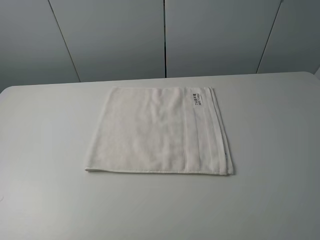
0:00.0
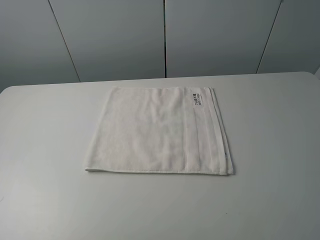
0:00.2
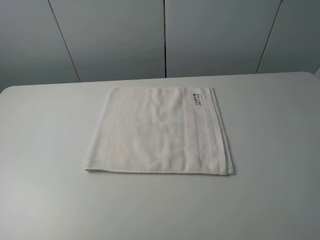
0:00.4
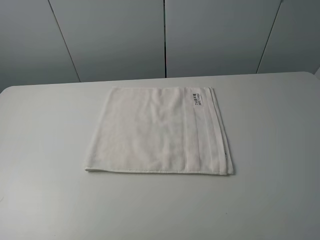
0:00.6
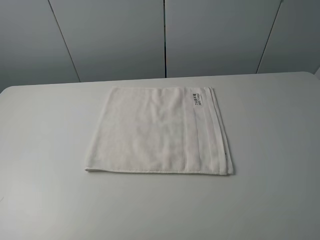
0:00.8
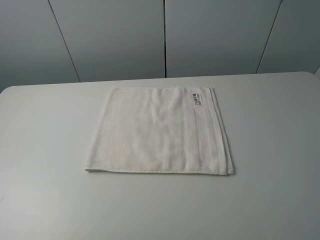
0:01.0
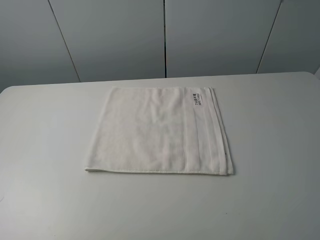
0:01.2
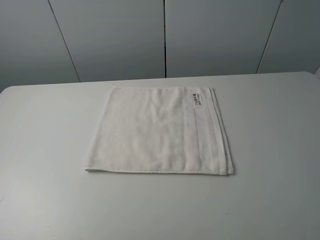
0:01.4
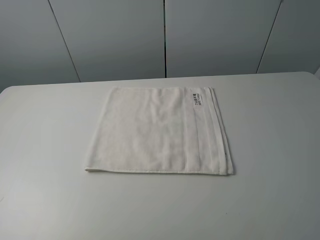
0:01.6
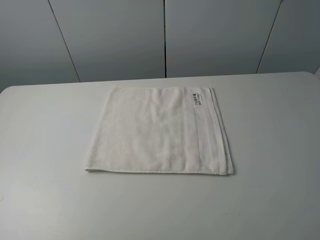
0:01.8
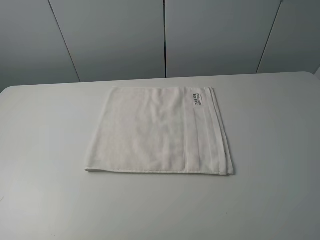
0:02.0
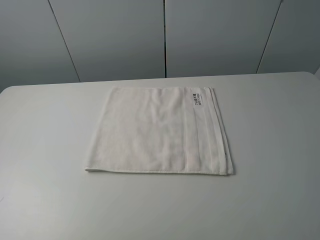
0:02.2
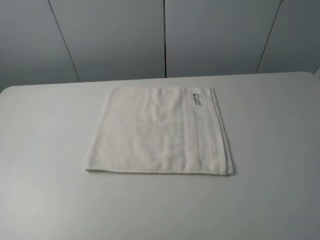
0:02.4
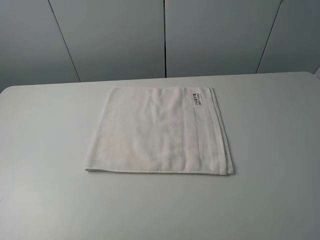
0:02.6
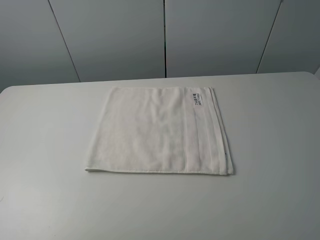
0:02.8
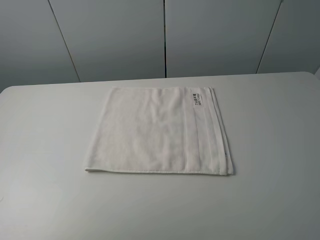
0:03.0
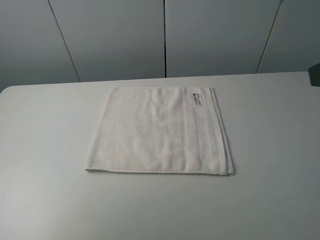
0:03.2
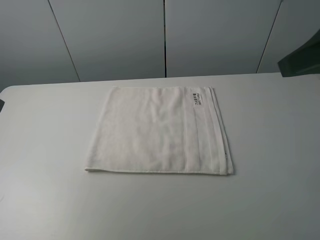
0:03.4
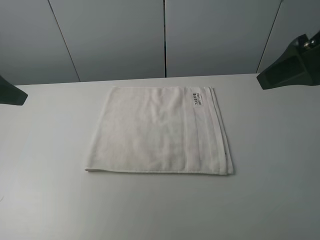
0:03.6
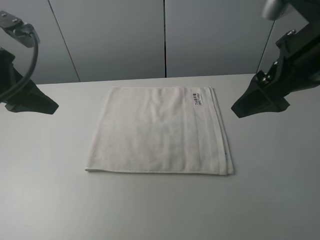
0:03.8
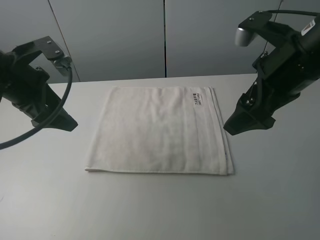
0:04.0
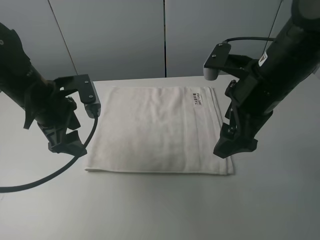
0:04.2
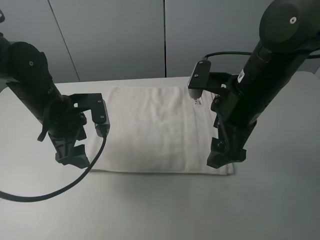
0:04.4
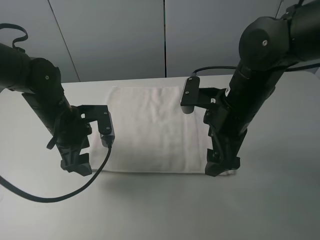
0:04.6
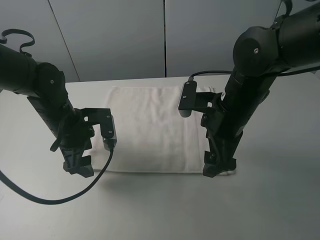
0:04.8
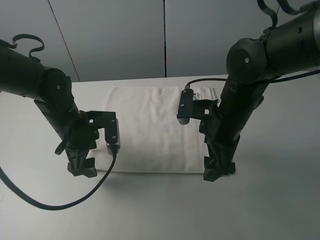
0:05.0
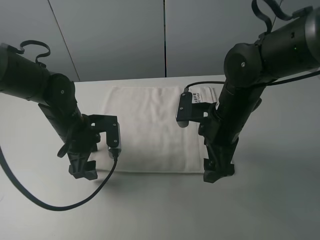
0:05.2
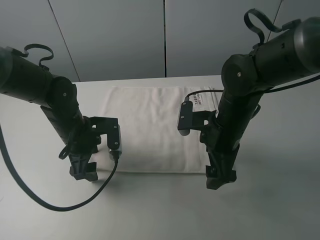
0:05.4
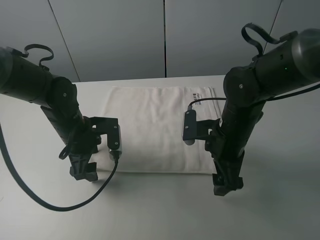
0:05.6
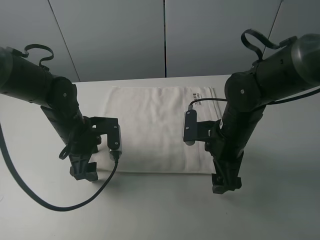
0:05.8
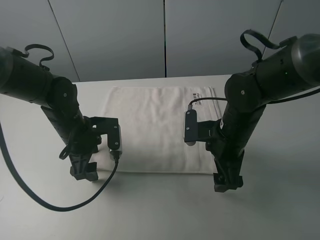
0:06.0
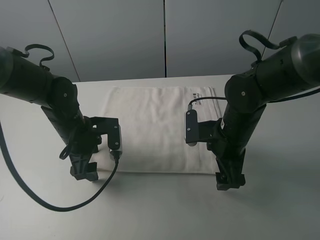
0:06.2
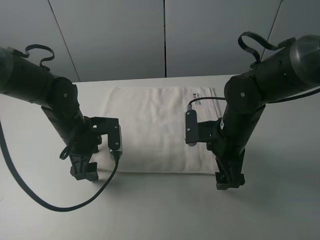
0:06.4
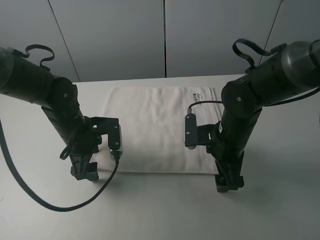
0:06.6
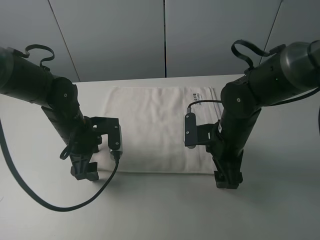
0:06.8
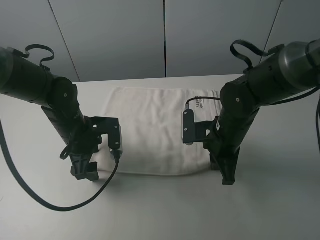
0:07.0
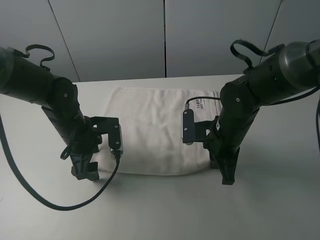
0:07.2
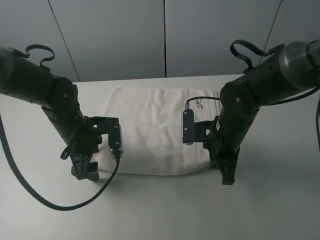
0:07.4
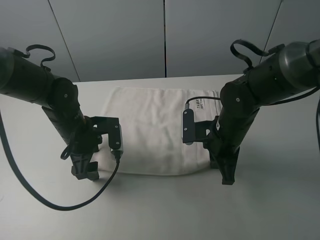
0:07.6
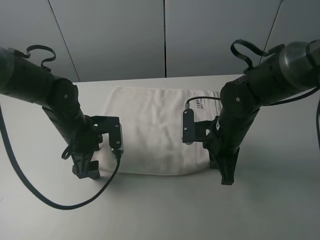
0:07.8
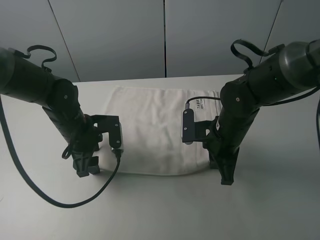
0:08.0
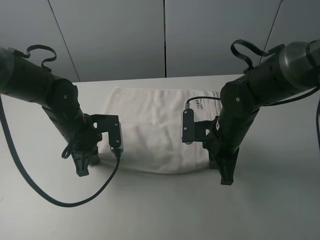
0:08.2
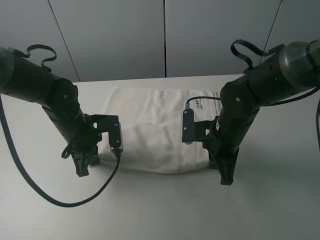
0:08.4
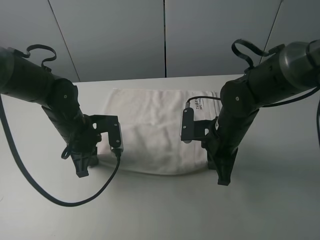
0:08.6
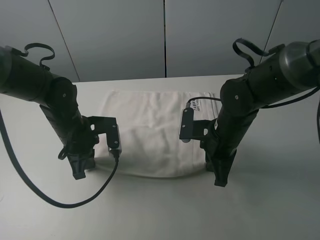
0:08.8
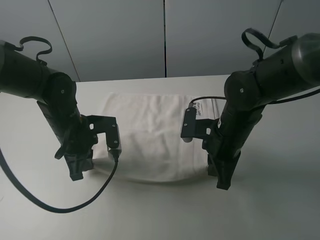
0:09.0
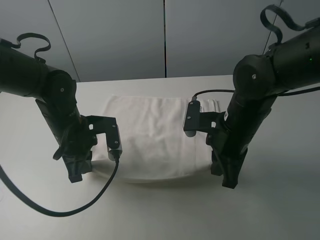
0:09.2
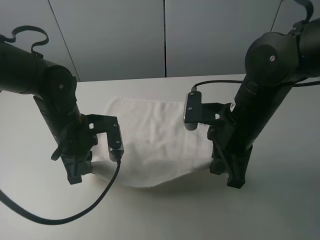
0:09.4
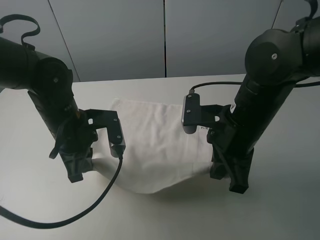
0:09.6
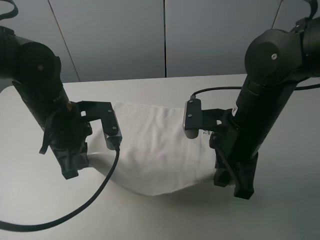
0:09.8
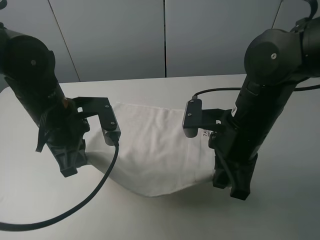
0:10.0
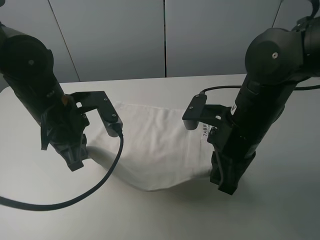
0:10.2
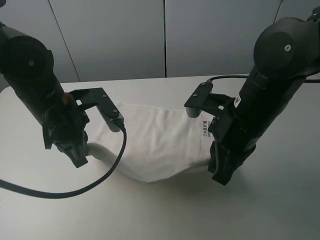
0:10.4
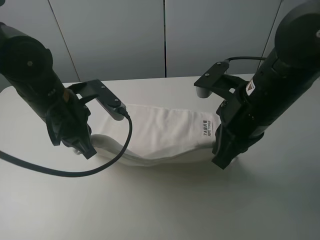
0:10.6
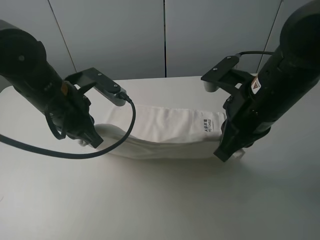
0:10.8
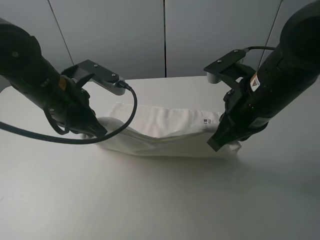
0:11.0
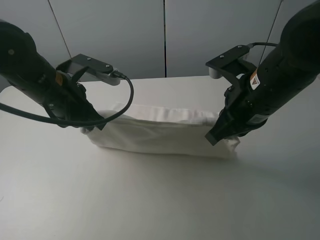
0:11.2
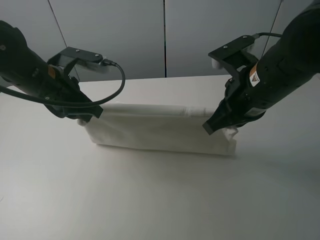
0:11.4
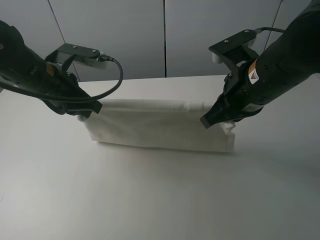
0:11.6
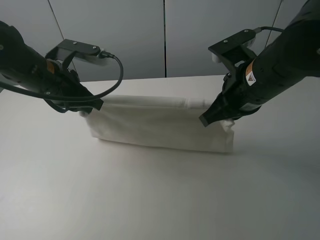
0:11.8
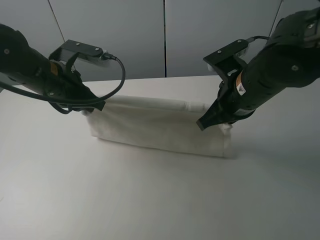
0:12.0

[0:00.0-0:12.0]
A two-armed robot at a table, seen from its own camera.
Task of the whole recording: fold the towels on the table.
Step, 0:00.0 to 0:07.0: Grasp the white towel with the right gripper.
Step, 0:07.2 to 0:08.2: Grasp the white towel with the left gripper.
0:00.0 to 0:01.6: Both grippers stay about where they are.
0:03.0 to 0:04.4: The right gripper goes approximately 25 cm forward, downward and to the left. Meanwhile the left gripper goes approximately 30 cm to the right, downward and forward.
0:04.4 to 0:06.0: The left gripper goes some 5 cm downward. Meanwhile the right gripper is displaced downward by approximately 10 cm.
0:06.0 to 0:07.6: The right gripper closes its fingers.
0:07.6 to 0:09.0: The left gripper closes.
0:09.0 to 0:10.4: The two grippers go roughly 5 cm upward.
0:10.4 to 0:12.0: The left gripper is displaced forward by about 5 cm.

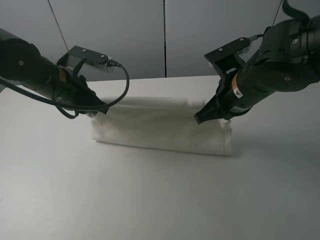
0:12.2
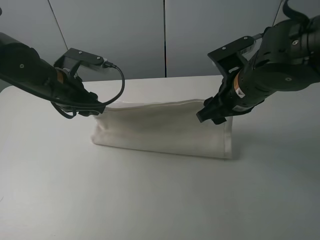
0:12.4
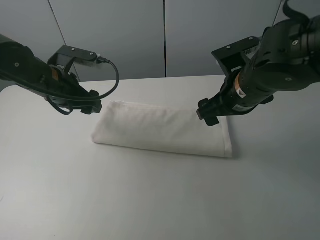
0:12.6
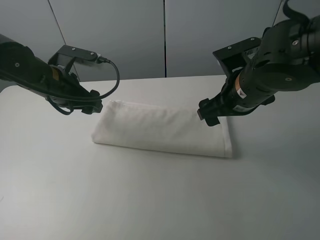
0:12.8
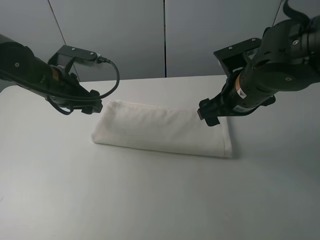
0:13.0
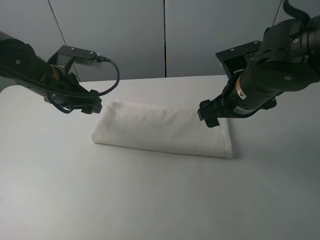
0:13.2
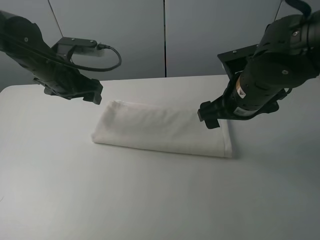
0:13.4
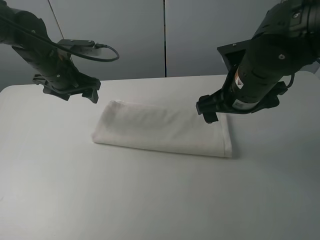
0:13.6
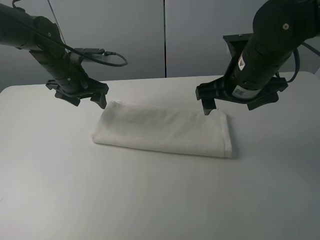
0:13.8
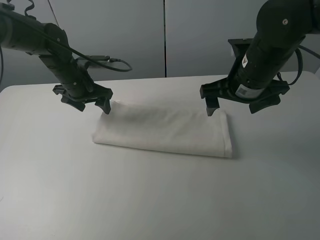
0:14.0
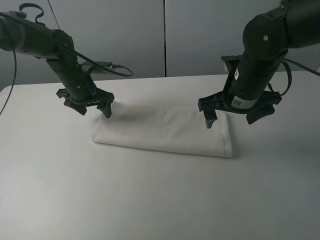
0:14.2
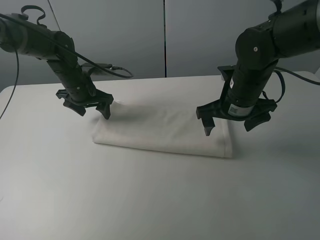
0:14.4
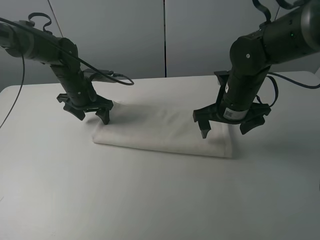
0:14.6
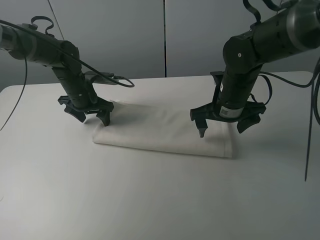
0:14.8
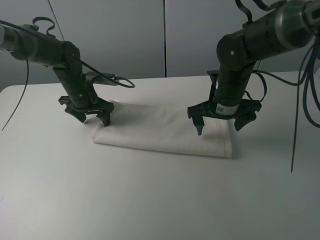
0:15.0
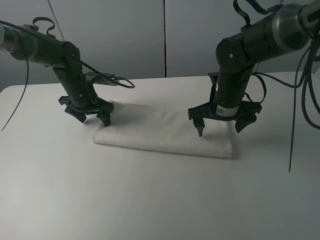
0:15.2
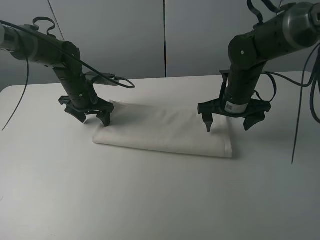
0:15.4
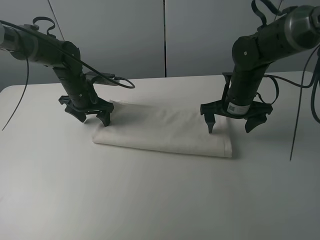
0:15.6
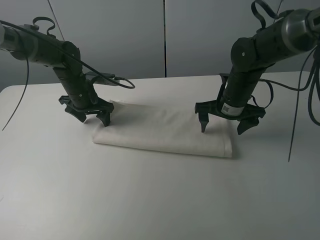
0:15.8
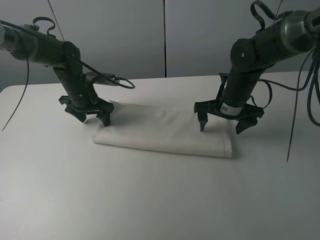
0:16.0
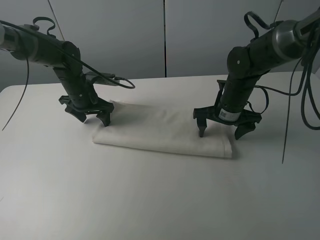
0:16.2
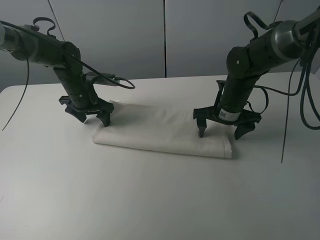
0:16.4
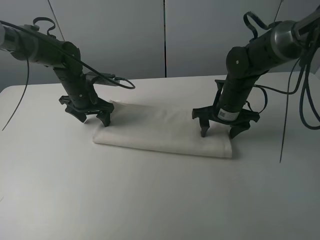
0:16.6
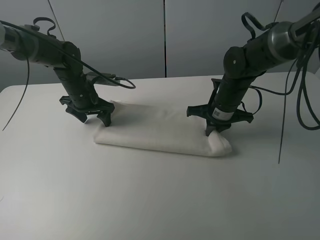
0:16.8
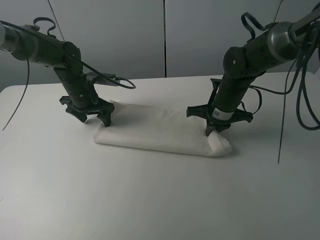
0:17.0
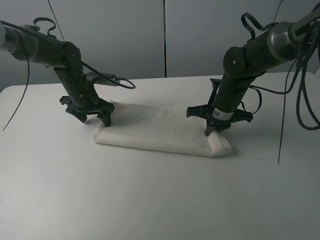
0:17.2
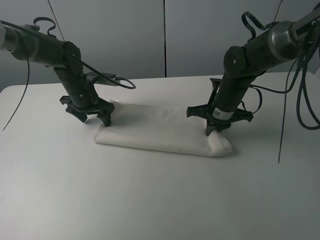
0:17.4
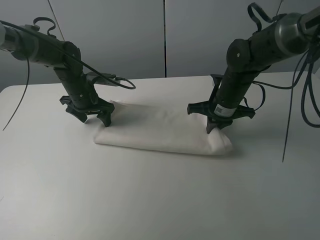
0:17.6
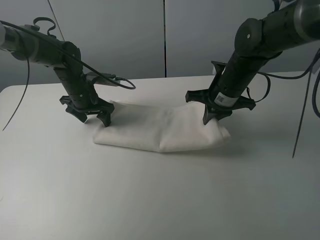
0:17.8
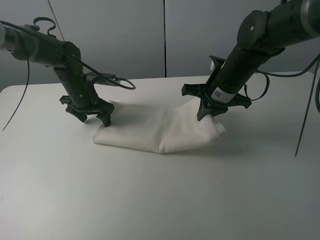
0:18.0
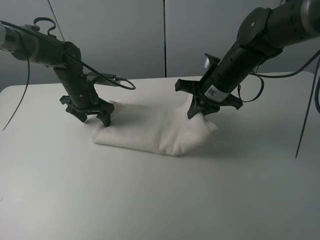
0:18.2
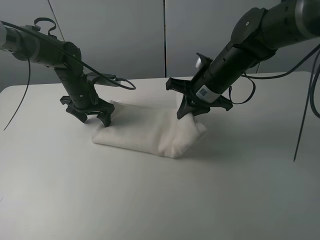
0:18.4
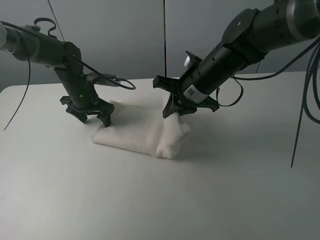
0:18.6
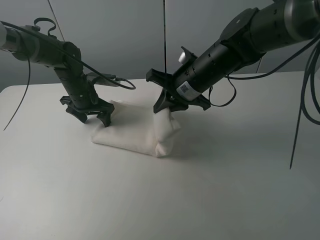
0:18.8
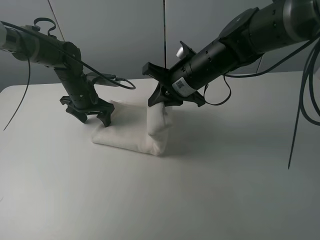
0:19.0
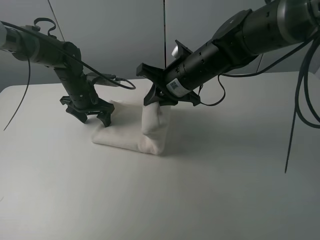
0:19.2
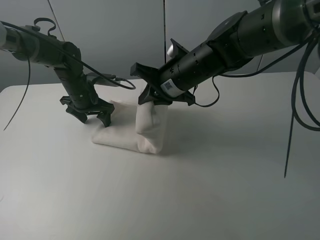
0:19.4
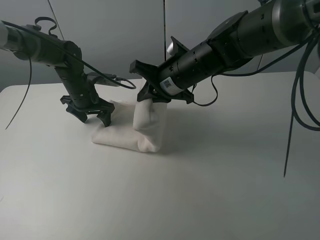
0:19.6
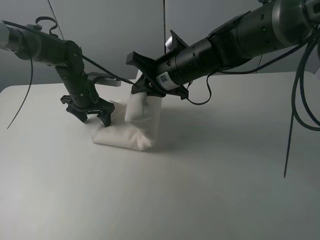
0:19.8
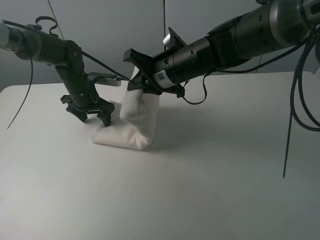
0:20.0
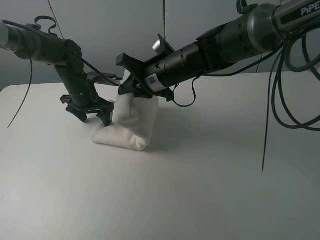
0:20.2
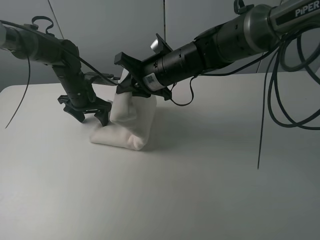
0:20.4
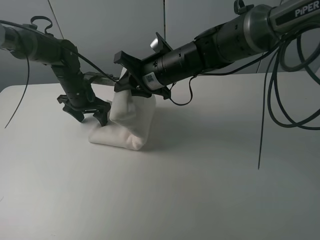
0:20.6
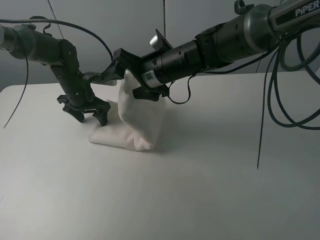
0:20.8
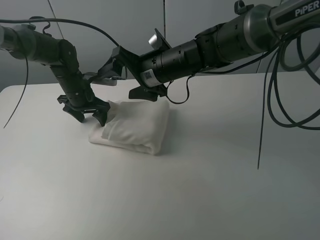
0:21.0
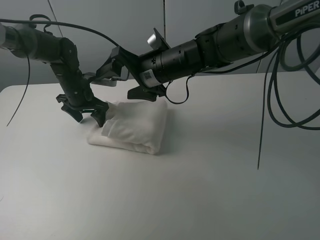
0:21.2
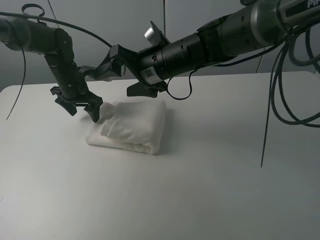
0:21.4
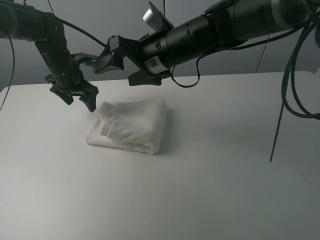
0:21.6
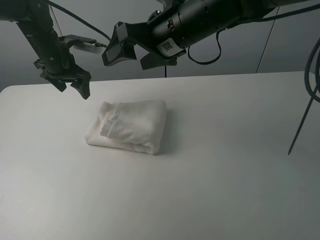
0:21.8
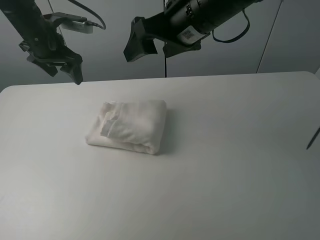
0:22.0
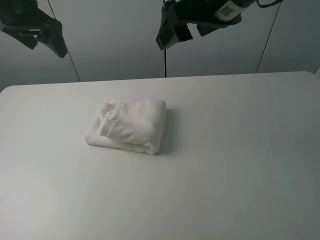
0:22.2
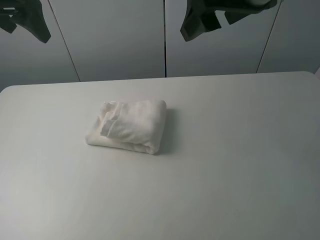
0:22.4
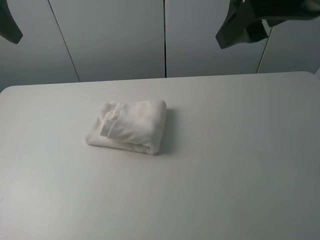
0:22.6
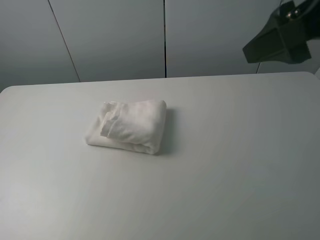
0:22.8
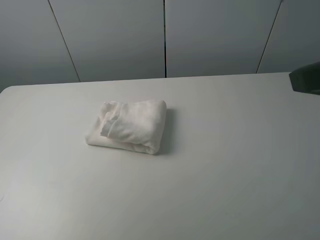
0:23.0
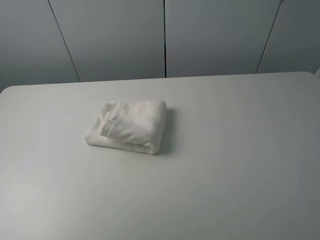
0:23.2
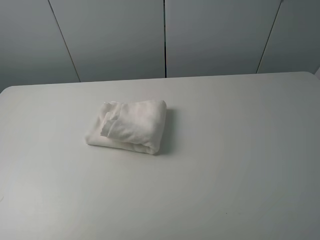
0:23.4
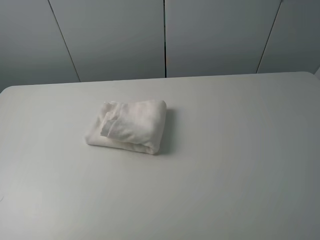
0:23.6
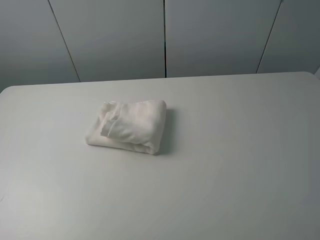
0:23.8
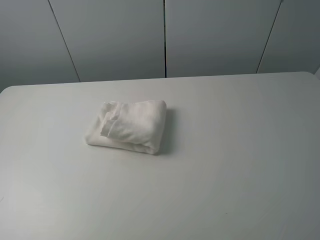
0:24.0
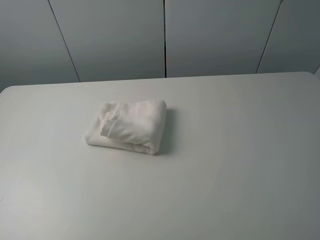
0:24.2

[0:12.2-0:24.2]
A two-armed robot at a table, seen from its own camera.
Task of the whole recording: fold the towels on the table.
Step, 0:13.0 to 0:14.8: Press on the white towel with the left gripper.
Step, 0:15.0 to 0:21.2: Fold the white towel from right to left with right gripper.
0:12.2 to 0:13.8: The left gripper is displaced forward by about 10 cm, and opens; the right gripper opens.
0:13.8 to 0:15.2: The left gripper goes about 5 cm downward, while the right gripper heads downward and forward, covering roughly 10 cm.
0:15.2 to 0:16.6: The right gripper closes.
0:16.6 to 0:18.2: The right gripper shifts approximately 5 cm upward, and closes.
0:18.2 to 0:19.8: The right gripper heads to the left, covering about 10 cm.
0:19.8 to 0:21.2: The right gripper opens its fingers.
0:21.2 to 0:22.6: The left gripper is displaced upward and backward by about 30 cm. Meanwhile the right gripper moves upward, to the right and backward, about 30 cm.
0:22.6 to 0:24.2: The left gripper goes some 30 cm backward, to the left and downward. The right gripper travels backward, to the right and downward by roughly 25 cm.
